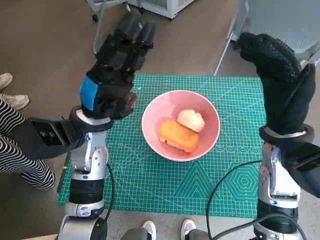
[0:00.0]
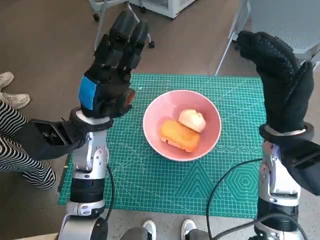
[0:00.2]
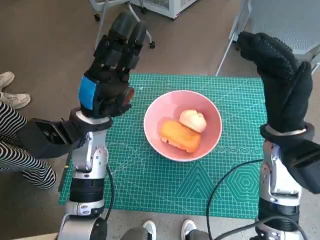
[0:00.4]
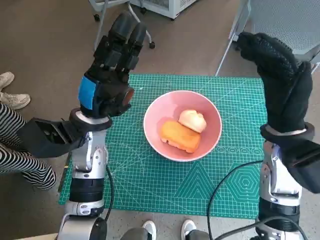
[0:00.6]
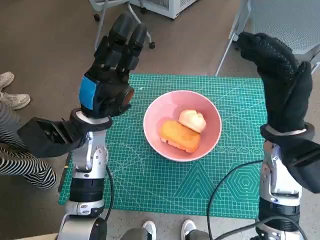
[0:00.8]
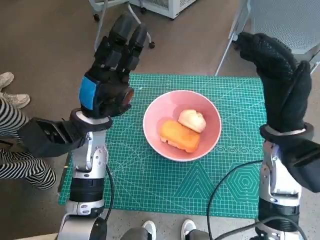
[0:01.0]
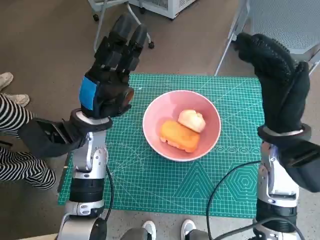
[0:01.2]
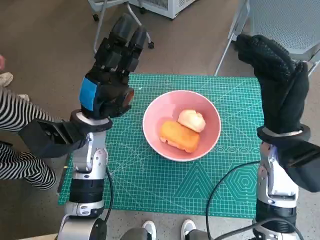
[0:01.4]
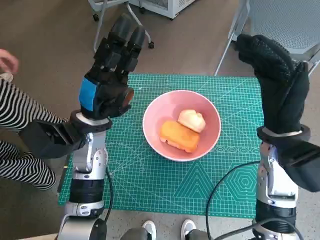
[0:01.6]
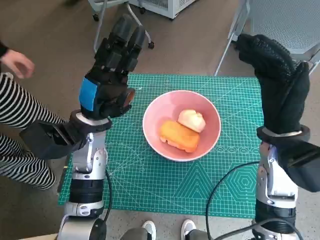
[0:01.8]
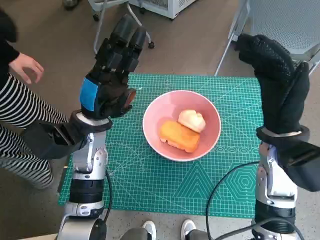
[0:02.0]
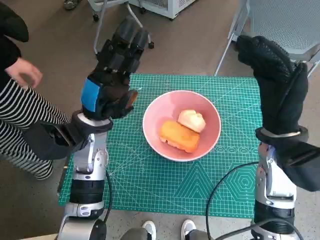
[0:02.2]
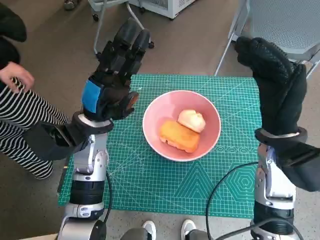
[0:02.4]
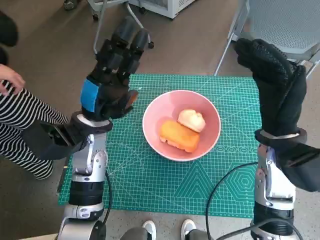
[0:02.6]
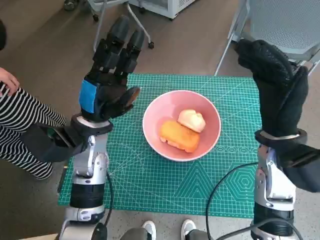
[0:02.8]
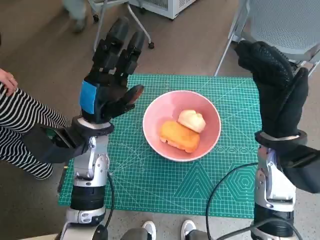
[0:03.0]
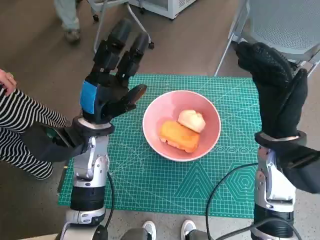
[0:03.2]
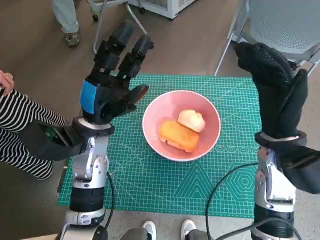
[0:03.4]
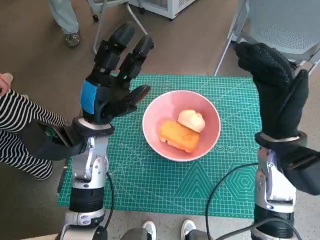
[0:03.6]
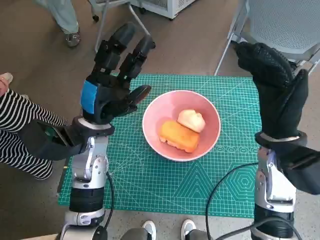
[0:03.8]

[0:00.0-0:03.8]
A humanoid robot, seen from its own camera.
Task of the whole recording: Push the bowl into the center of the table and put the bread into the bowl.
0:00.0 to 0:01.2: The hands make only small movements.
0:01.2 to 0:02.6: Neither hand changes place.
0:02.6 to 0:03.8: The hands make only small movements.

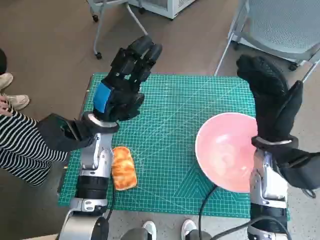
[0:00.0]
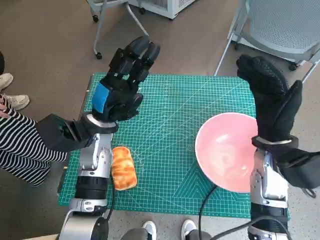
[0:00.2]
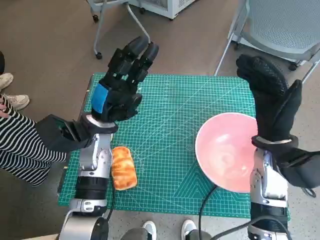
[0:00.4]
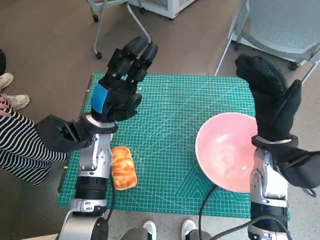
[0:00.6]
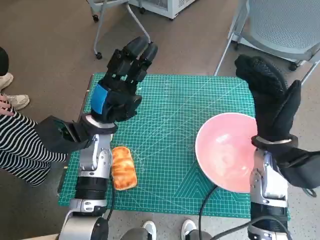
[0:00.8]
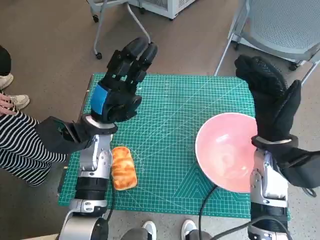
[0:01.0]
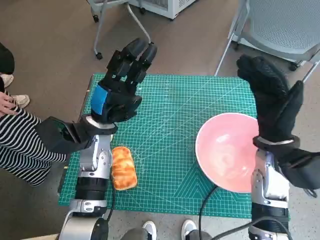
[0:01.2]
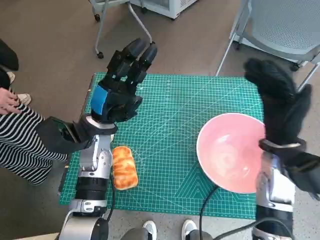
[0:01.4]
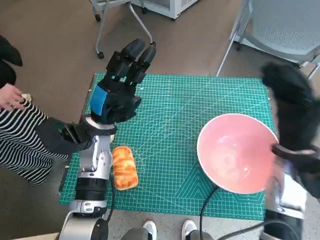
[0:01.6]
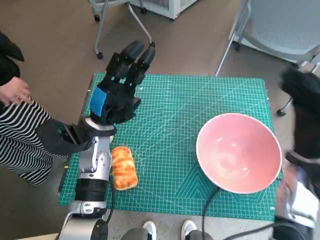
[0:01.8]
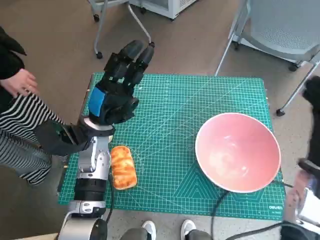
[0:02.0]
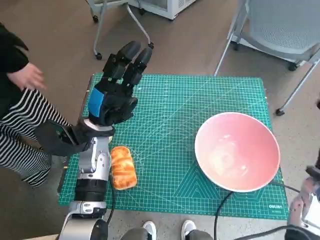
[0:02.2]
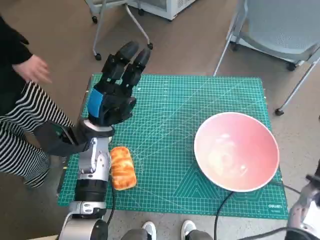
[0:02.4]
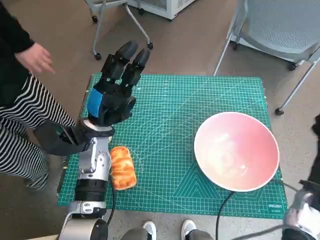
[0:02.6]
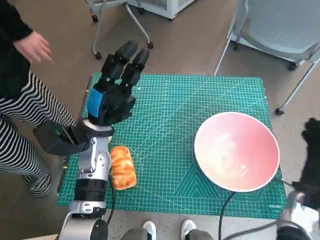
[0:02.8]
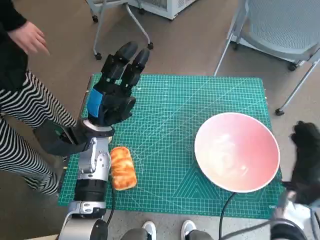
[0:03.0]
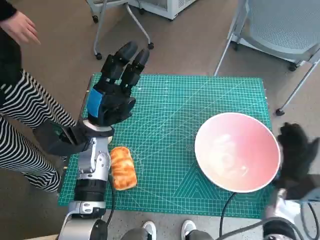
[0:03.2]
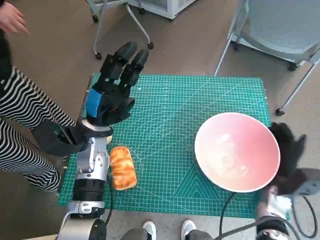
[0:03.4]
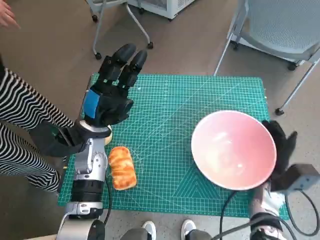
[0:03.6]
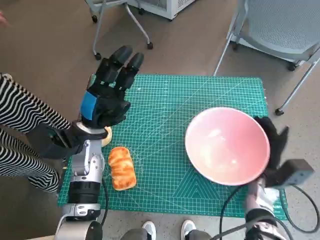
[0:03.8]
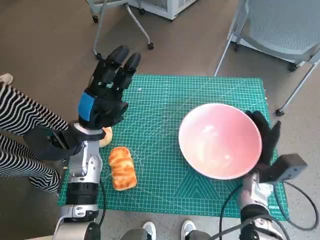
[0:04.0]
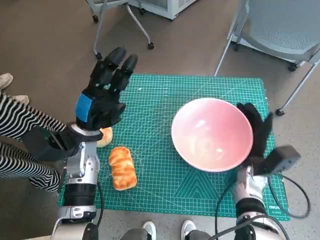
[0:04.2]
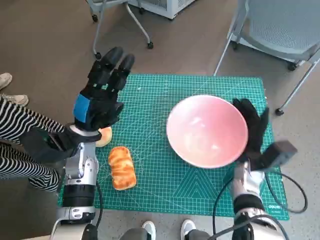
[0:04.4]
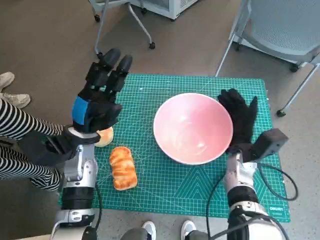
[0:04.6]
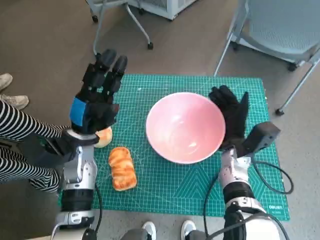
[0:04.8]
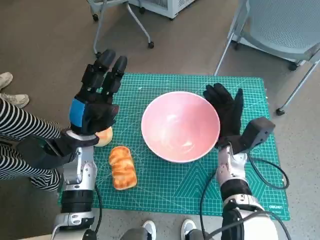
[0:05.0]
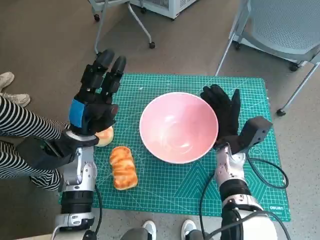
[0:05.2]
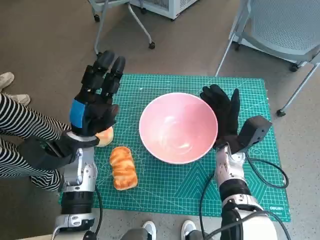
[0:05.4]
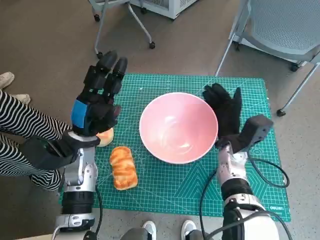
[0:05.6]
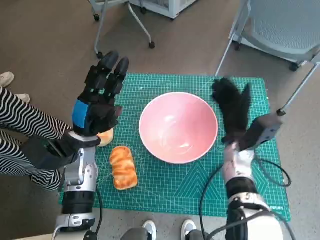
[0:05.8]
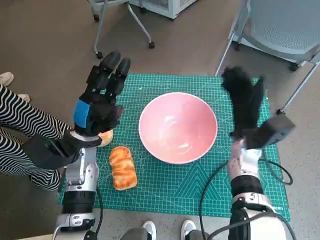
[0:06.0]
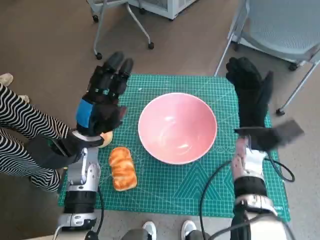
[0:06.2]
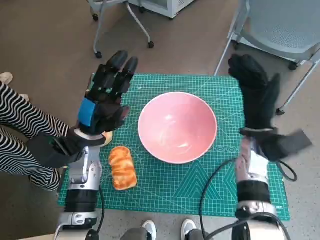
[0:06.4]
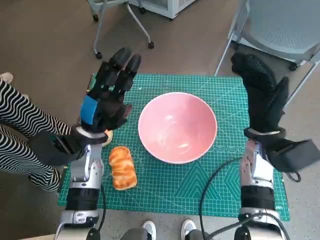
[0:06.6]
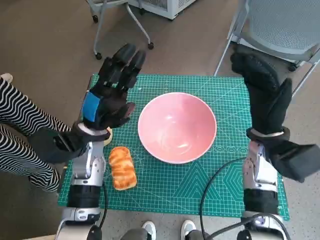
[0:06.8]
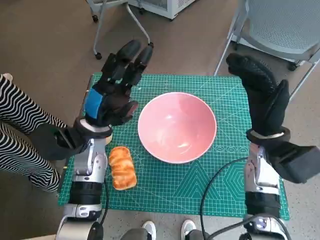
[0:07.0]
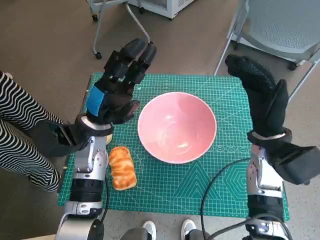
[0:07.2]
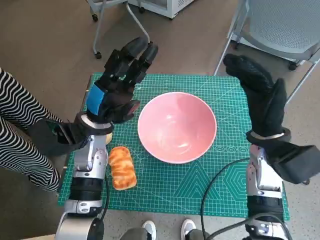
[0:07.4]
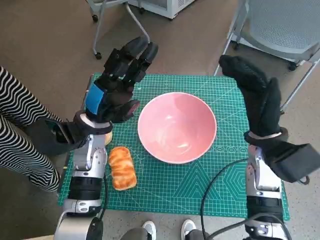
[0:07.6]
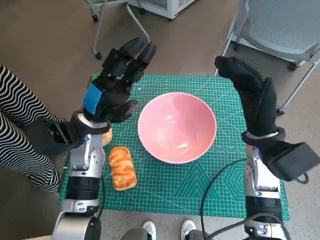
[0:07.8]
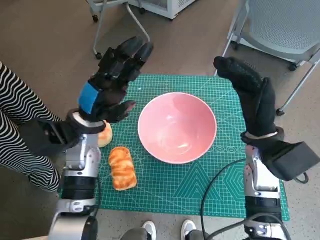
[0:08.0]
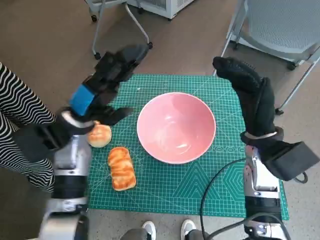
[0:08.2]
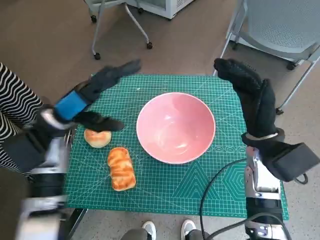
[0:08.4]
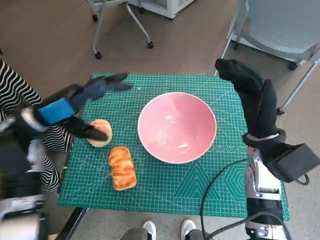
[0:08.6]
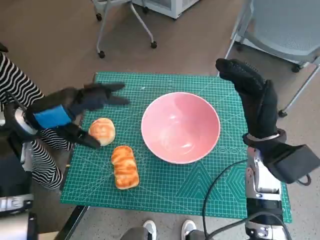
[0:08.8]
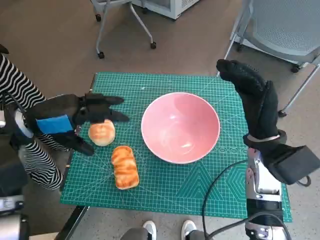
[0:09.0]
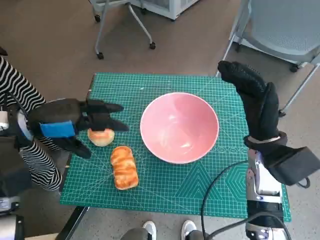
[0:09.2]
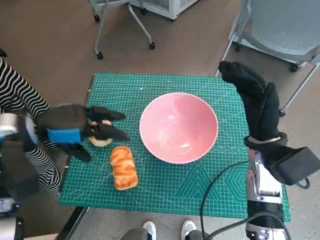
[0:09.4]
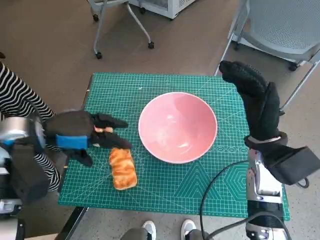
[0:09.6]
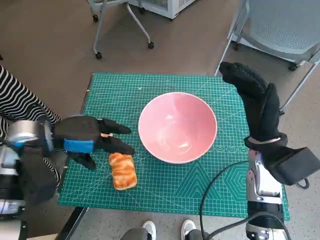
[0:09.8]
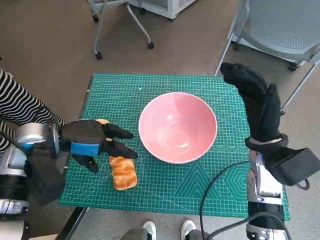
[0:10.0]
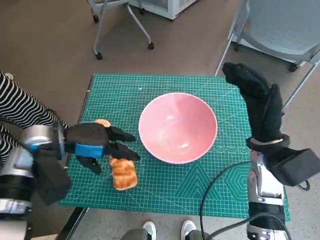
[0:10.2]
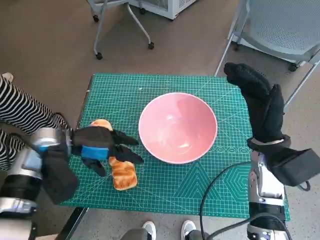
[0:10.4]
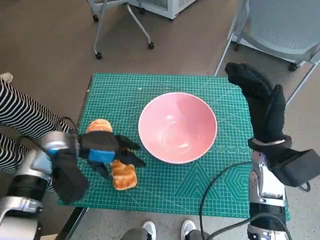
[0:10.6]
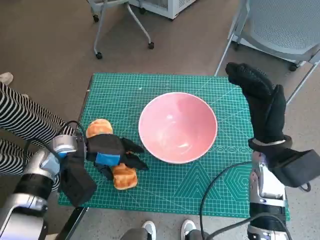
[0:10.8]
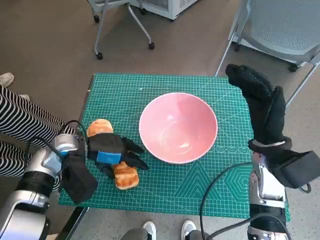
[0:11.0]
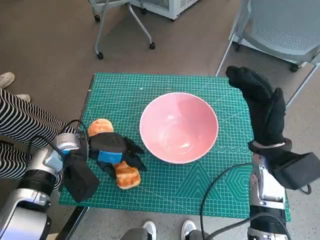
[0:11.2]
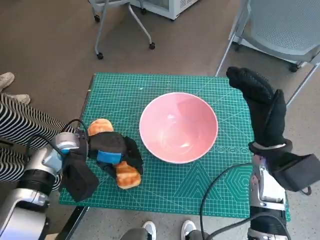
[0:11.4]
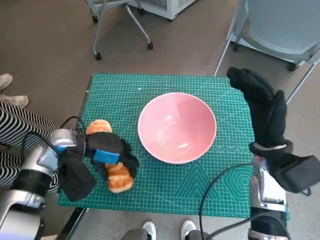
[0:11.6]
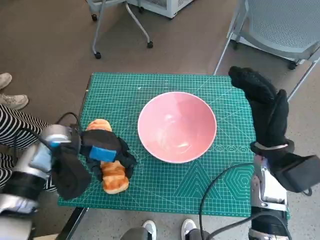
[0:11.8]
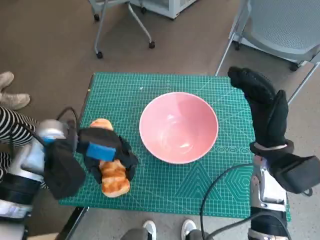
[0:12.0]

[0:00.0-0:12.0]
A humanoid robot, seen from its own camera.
Task of the whole recording: Push the bowl into the center of the table and put the bread into the bowl.
Step, 0:00.0 to 0:05.8: Move the pink bowl to the center of table with right hand.
Step, 0:06.0 to 0:11.4: Grasp the long bread with left hand.
0:01.6 to 0:03.0: The right hand moves downward and to the right, approximately 15 cm.
0:03.0 to 0:04.4: The right hand travels to the left and forward by some 10 cm.
0:04.4 to 0:06.0: The right hand moves upward, approximately 5 cm.
0:06.0 to 0:07.6: The right hand heads upward, covering roughly 5 cm.
0:07.6 to 0:09.0: The left hand shifts about 15 cm to the left and upward.
0:09.0 to 0:10.4: The left hand moves downward, some 5 cm.
0:10.4 to 0:12.0: The hands move only a little.

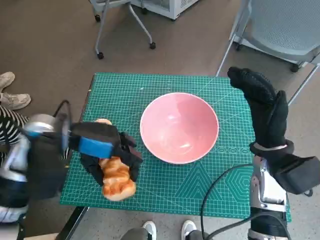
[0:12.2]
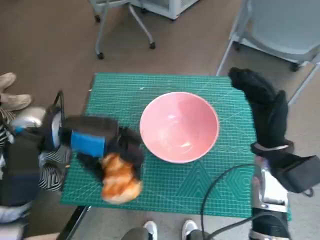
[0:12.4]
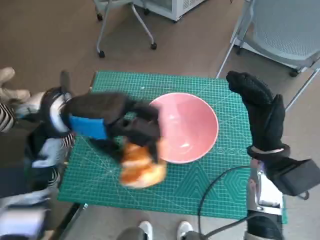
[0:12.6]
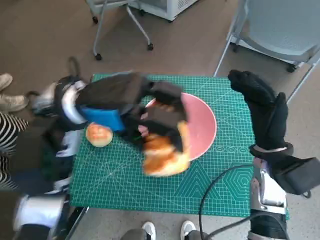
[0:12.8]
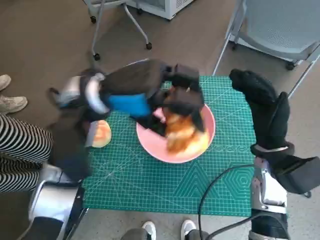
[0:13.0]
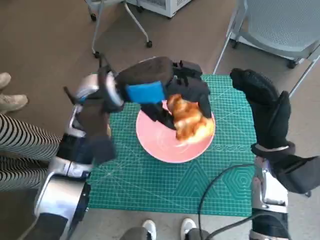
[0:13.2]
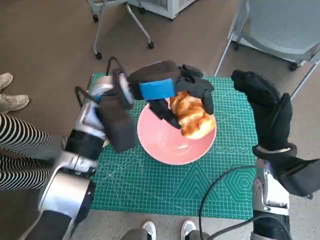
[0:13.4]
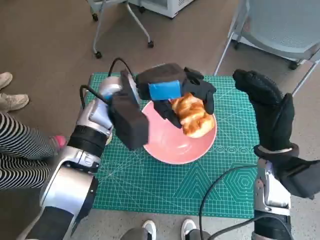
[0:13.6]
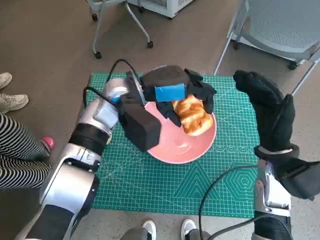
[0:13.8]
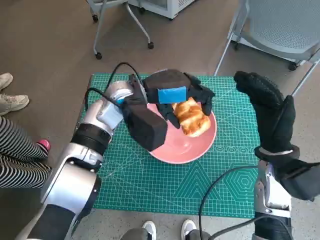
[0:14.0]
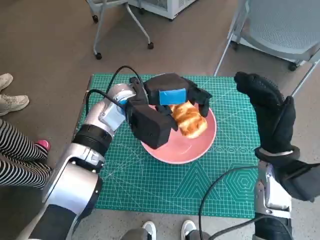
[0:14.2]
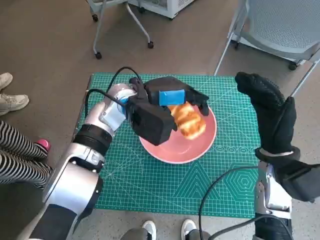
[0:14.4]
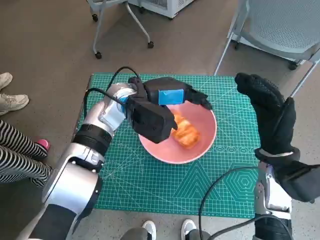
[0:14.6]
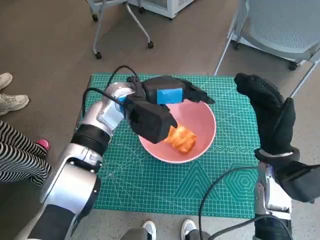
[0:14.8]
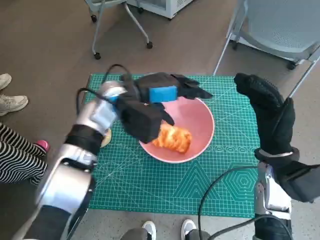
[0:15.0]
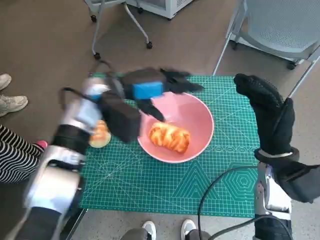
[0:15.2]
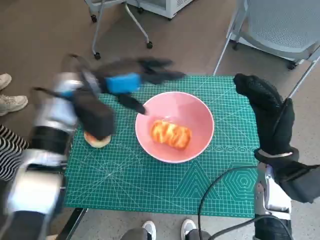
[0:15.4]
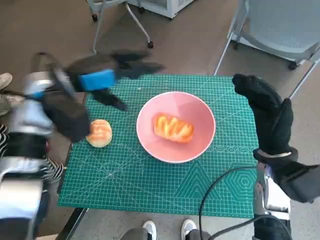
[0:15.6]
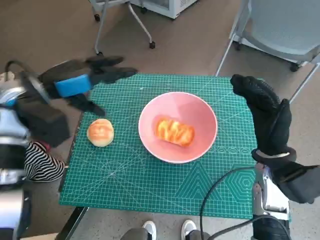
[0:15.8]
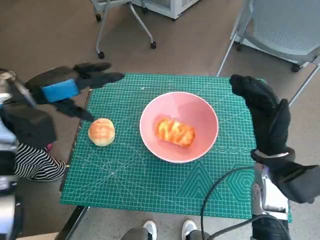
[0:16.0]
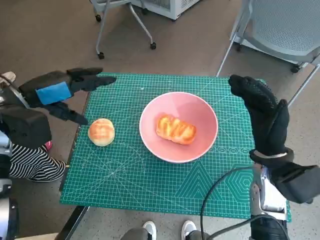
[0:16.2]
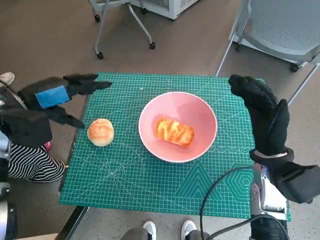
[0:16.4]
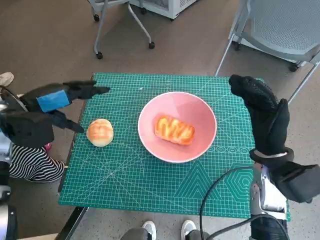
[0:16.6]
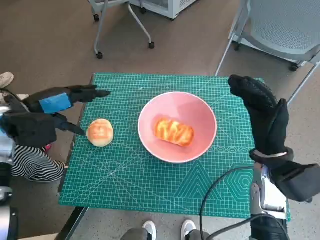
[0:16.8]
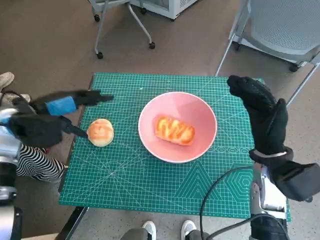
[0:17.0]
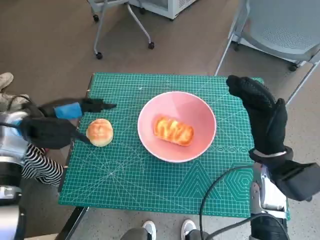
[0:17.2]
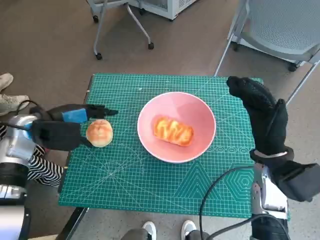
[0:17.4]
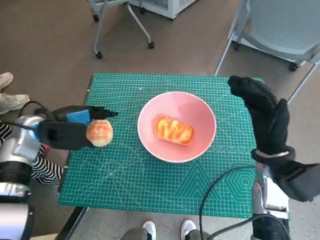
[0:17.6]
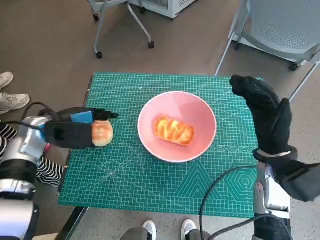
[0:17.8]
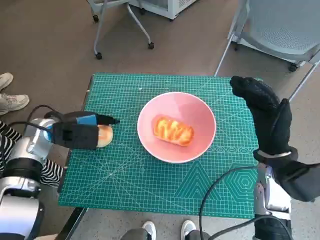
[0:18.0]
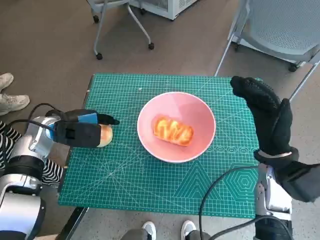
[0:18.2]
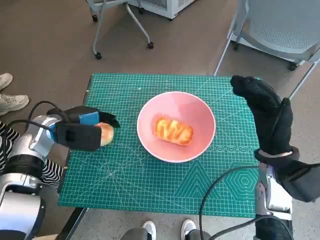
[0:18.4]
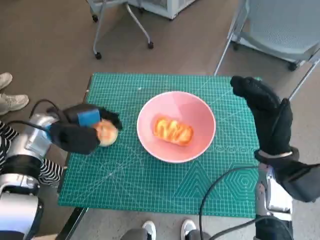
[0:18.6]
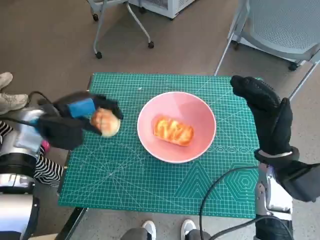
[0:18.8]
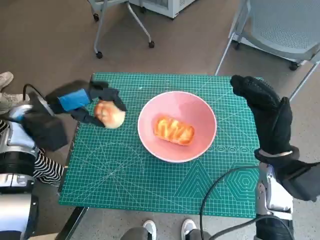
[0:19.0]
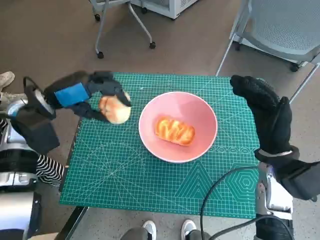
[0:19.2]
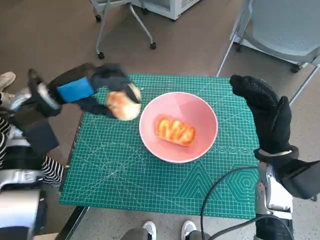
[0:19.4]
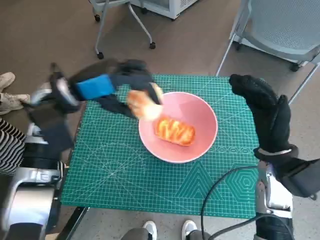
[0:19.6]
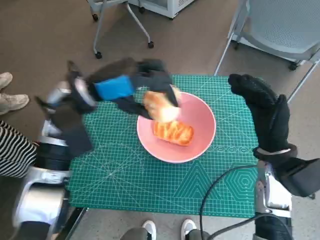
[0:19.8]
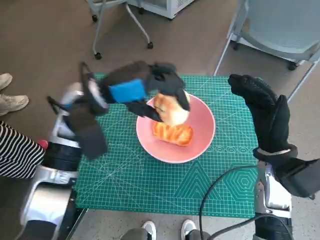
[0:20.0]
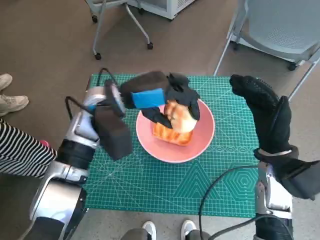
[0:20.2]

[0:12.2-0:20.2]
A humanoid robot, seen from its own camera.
Task of the whole recording: Push the bowl into the center of the table and put the bread into the bowl.
Step, 0:12.2 to 0:14.6: Place the long bread in pink bowl with left hand.
Step, 0:14.8 to 0:18.4: Grasp the round bread with left hand.
0:12.2 to 0:13.8: The left hand travels to the right and forward by approximately 15 cm.
0:13.8 to 0:15.4: The left hand shifts about 10 cm to the left.
0:15.4 to 0:17.0: The left hand goes approximately 10 cm to the left.
0:17.0 to 0:18.6: The left hand heads downward, covering roughly 5 cm.
0:18.6 to 0:20.2: The left hand heads to the right and upward, covering about 15 cm.
